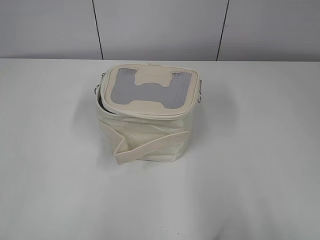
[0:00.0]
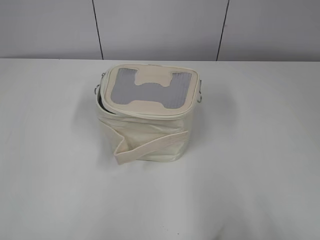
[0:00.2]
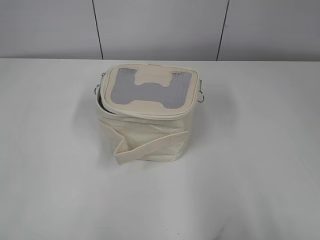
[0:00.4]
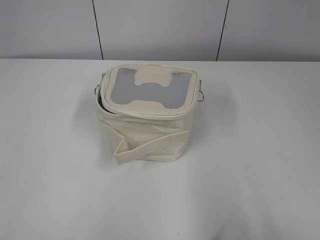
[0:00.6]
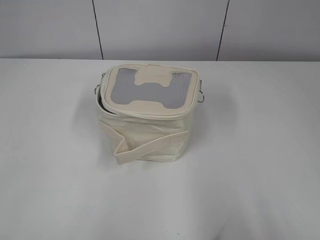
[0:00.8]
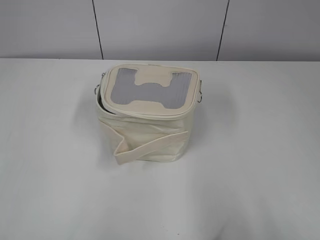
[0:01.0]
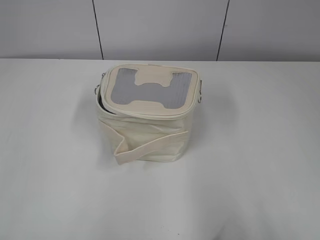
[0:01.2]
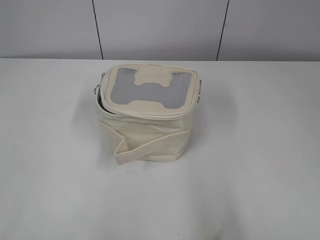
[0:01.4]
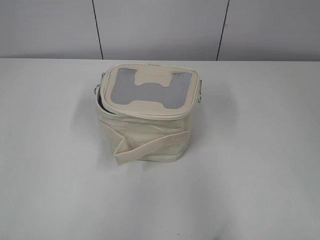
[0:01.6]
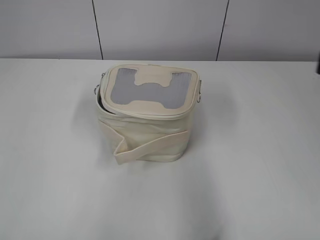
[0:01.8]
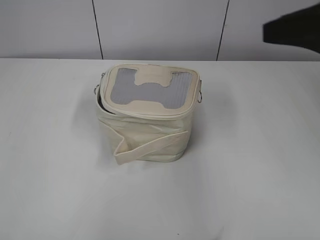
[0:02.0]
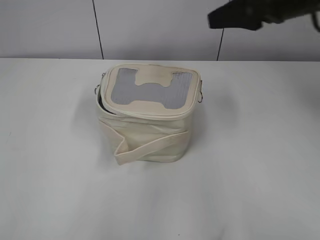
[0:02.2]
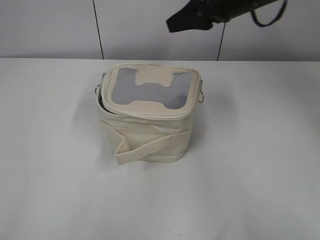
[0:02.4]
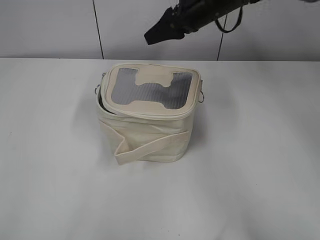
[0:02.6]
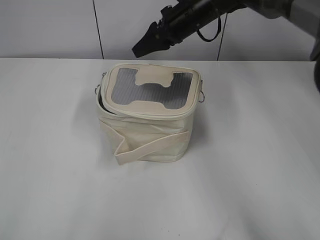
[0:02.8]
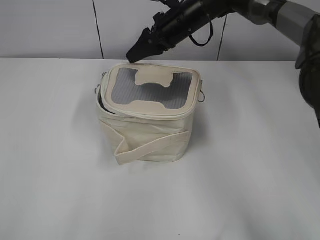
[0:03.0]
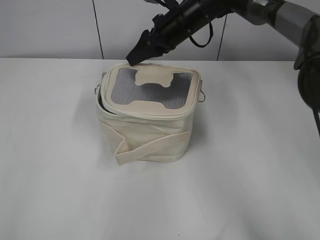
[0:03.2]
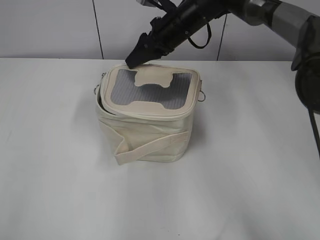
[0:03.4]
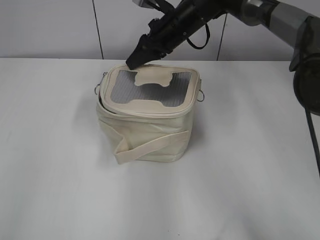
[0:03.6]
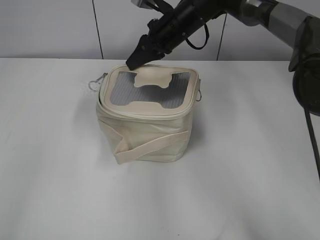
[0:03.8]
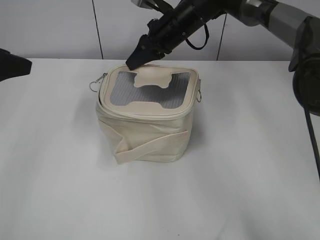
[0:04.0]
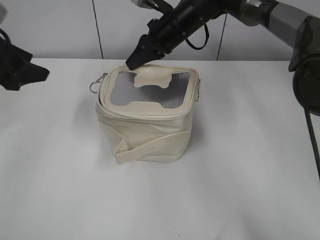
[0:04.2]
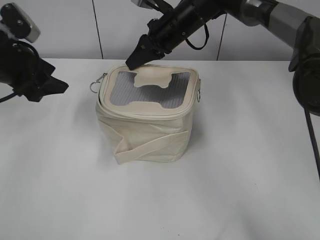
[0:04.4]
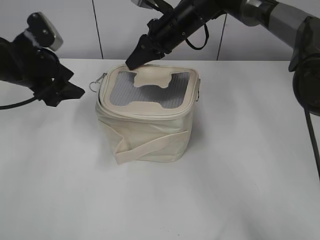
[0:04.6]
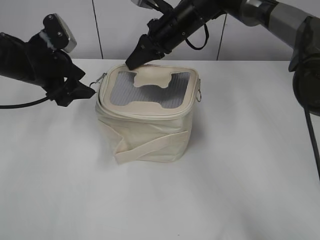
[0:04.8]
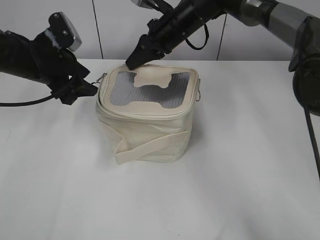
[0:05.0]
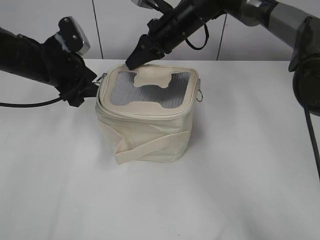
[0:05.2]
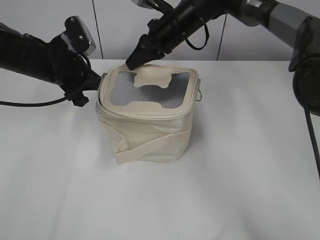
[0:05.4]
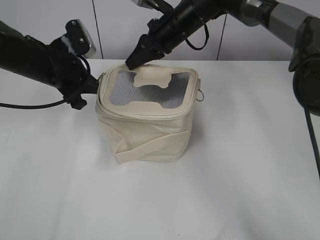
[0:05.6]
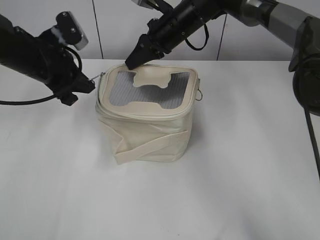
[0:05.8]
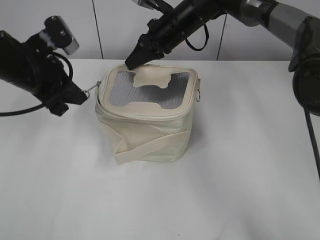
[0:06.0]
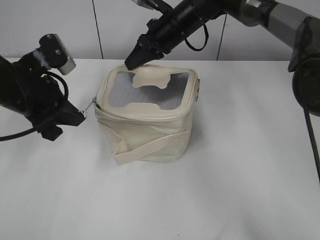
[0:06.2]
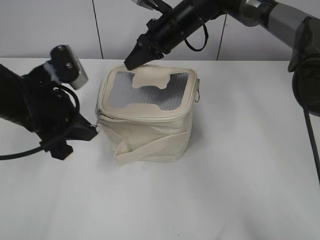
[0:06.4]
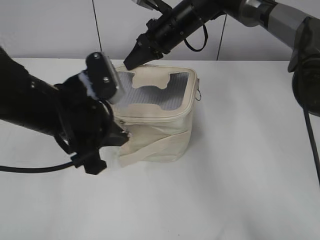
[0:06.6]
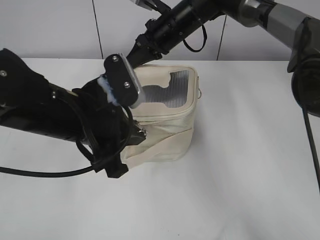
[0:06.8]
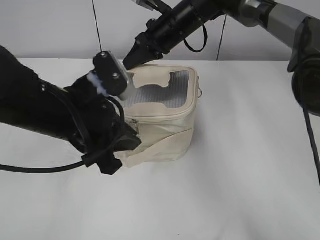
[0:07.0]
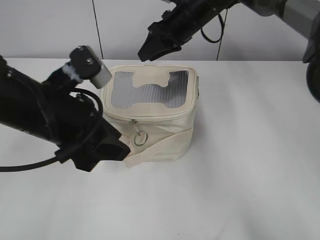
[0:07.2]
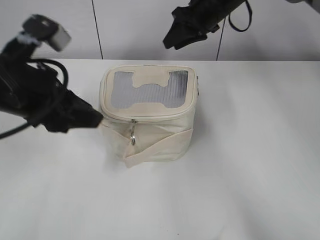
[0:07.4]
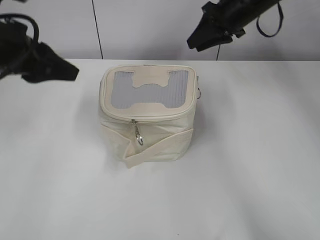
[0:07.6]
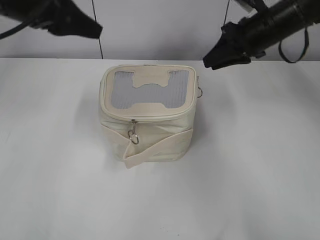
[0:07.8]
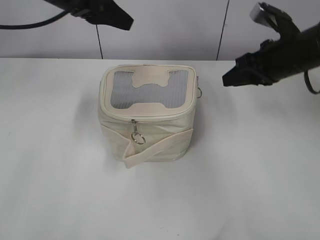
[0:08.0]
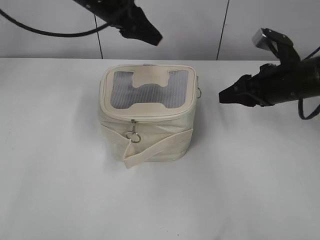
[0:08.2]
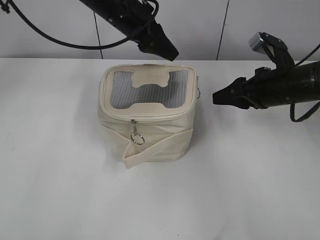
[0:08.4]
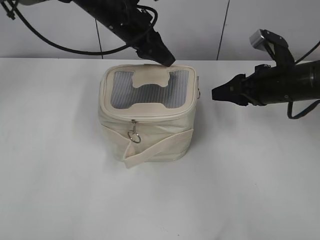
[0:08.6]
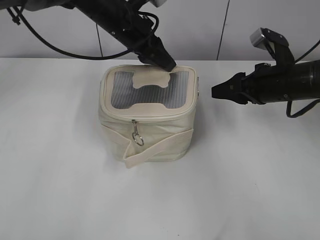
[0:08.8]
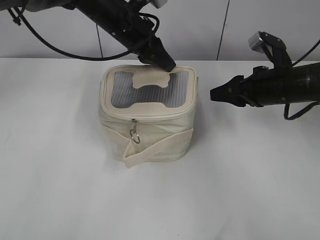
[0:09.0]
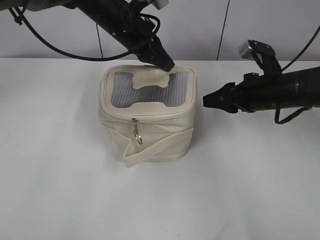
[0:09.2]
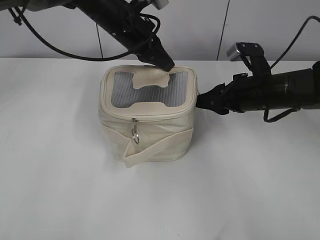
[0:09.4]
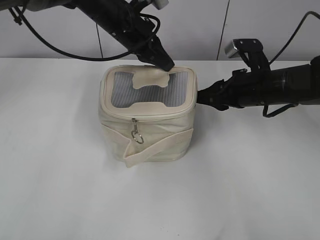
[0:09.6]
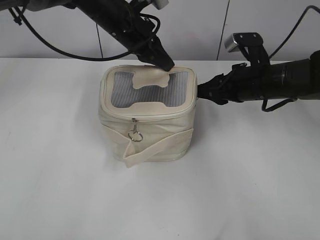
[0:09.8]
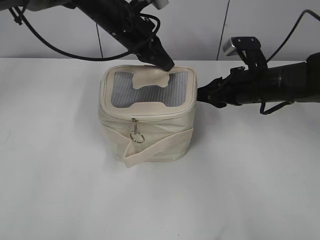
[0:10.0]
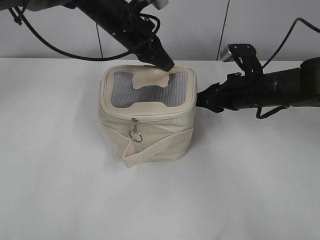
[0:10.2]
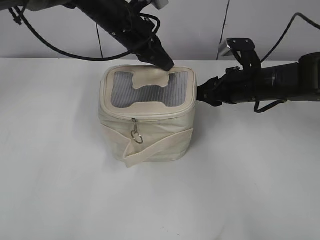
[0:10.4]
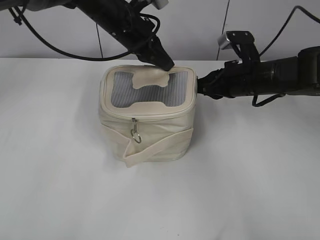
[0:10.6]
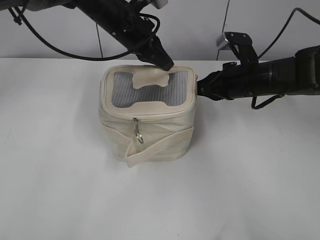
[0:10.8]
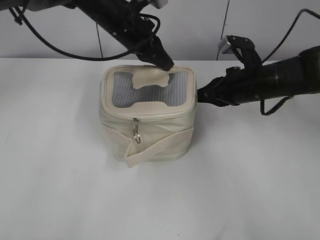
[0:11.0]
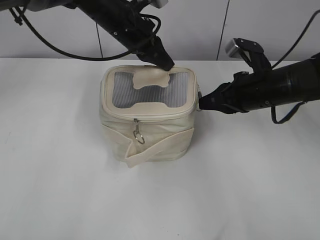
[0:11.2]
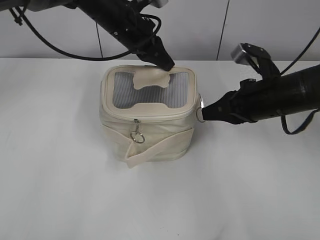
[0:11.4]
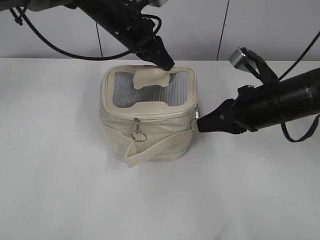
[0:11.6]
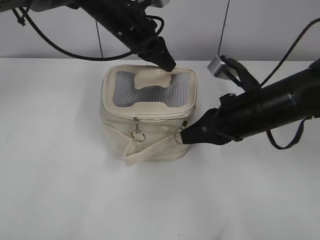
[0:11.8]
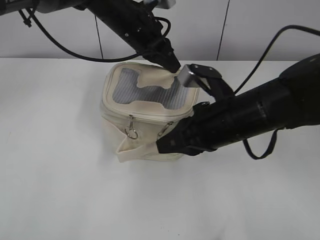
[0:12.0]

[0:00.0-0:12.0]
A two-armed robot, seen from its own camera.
Step, 0:00.0 to 0:07.0: Zip up the bag with your left hand.
0:01.6 to 0:03.0: The right gripper travels forward and to the left by roughly 50 cm.
0:03.0 to 0:04.4: The left gripper heads forward, covering approximately 35 cm, and opens. Meanwhile the right gripper closes its fingers.
0:04.4 to 0:06.0: The left gripper goes approximately 5 cm to the right, and closes.
0:06.0 to 0:07.6: The right gripper travels to the right by roughly 10 cm, and opens its fingers. The left gripper is displaced backward and upward by roughly 10 cm, and opens.
0:07.6 to 0:09.0: The left gripper is displaced forward and to the right by approximately 25 cm. Meanwhile the right gripper moves backward, downward and to the right, some 20 cm.
0:09.0 to 0:10.4: The right gripper shifts by some 5 cm. The left gripper closes.
0:10.4 to 0:12.0: The right gripper travels backward and to the left by approximately 10 cm, and closes.

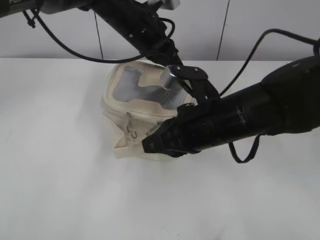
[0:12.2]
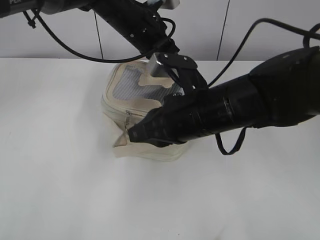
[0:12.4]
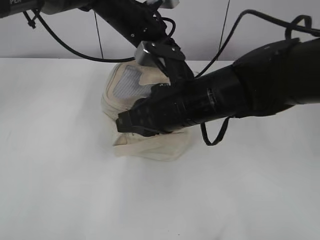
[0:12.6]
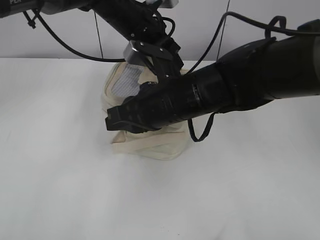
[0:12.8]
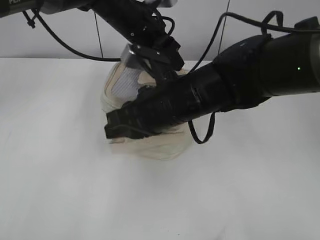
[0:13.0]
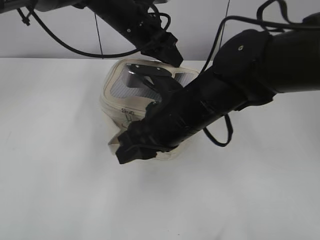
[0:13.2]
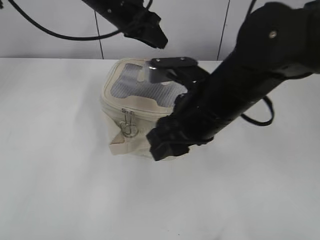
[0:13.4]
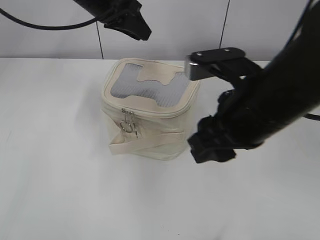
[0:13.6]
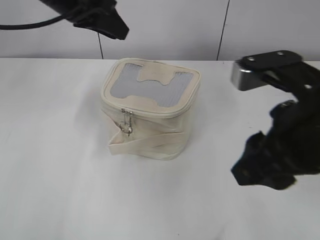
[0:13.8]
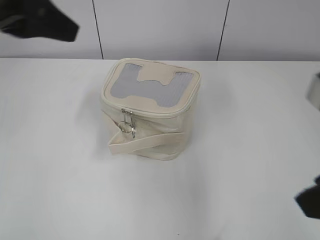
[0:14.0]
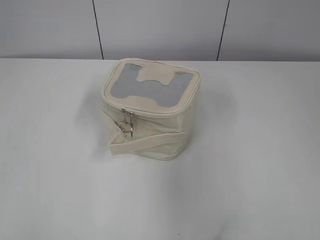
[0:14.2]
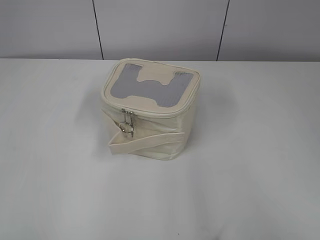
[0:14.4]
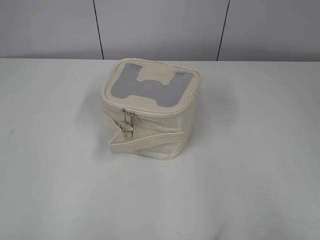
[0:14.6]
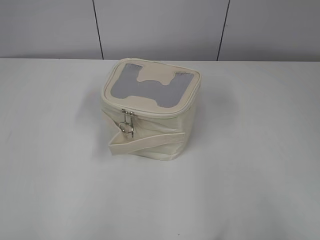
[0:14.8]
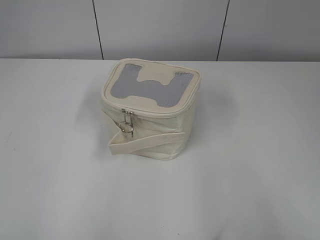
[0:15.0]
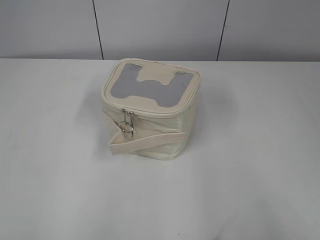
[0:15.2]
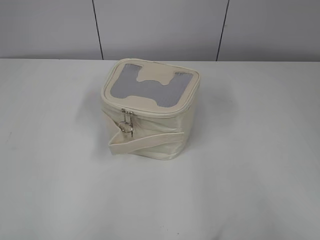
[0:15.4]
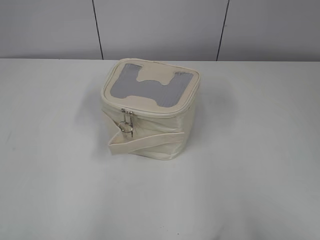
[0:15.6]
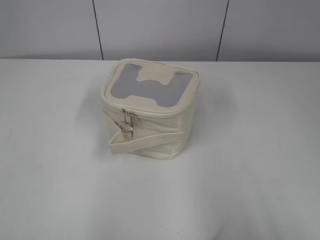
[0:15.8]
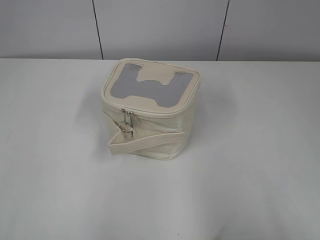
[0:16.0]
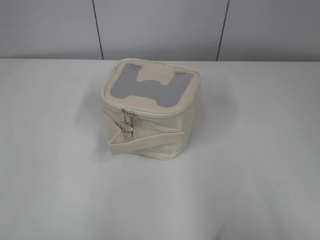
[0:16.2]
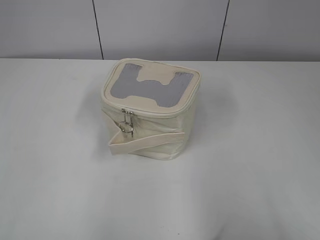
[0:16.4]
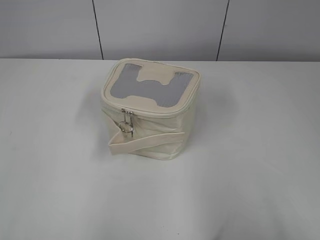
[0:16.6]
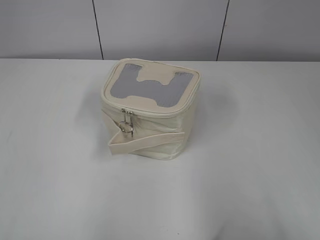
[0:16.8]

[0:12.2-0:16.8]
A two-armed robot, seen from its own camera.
0:12.2 to 0:13.8: The left gripper heads to the left, upward and backward, covering approximately 15 cm, and opens up; the right gripper heads upward and backward, covering roughly 10 cm, and opens up.
0:13.8 to 0:15.2: The right gripper is displaced backward and to the right by some 25 cm; the left gripper travels backward and to the left by roughly 40 cm.

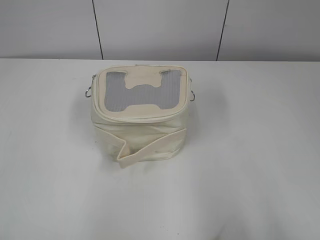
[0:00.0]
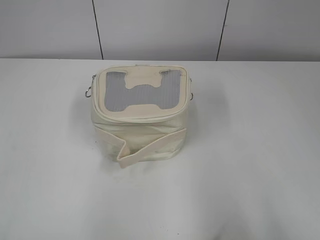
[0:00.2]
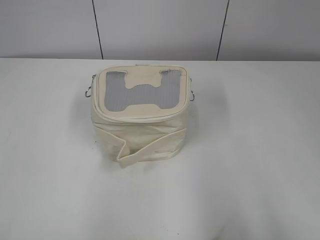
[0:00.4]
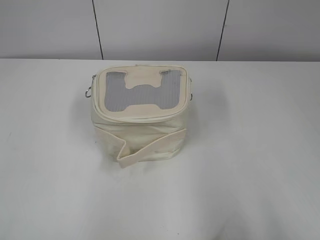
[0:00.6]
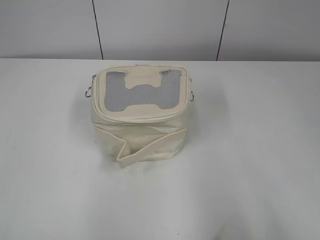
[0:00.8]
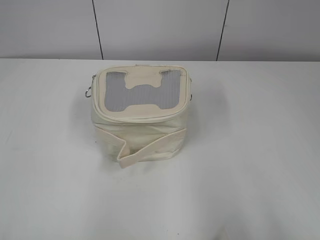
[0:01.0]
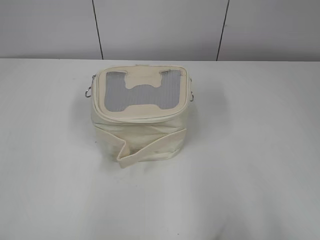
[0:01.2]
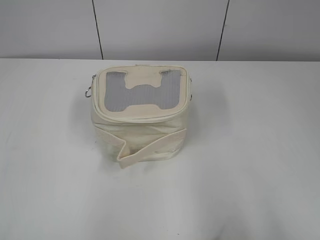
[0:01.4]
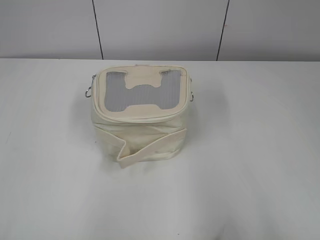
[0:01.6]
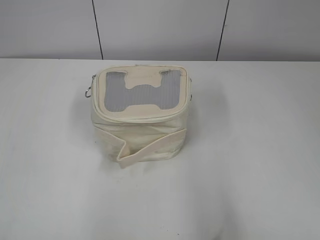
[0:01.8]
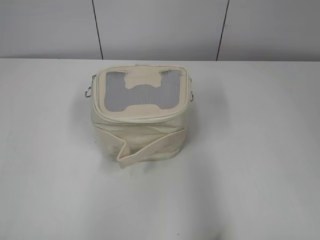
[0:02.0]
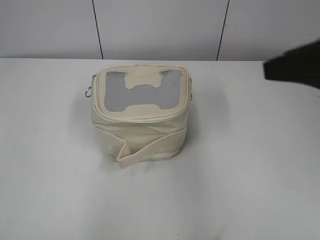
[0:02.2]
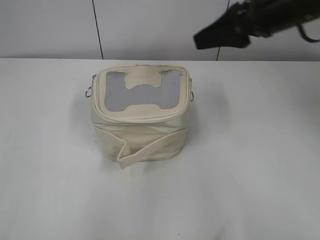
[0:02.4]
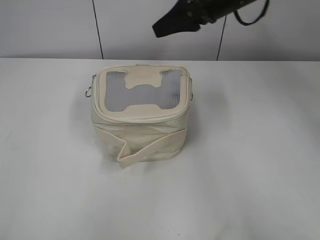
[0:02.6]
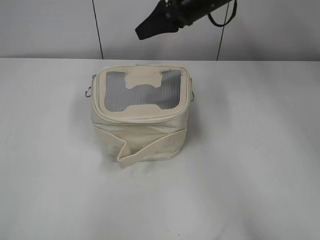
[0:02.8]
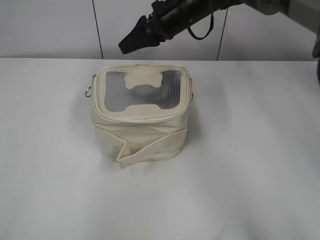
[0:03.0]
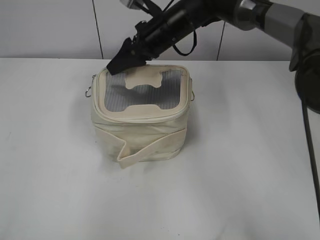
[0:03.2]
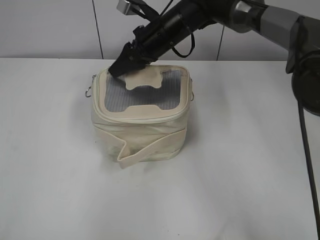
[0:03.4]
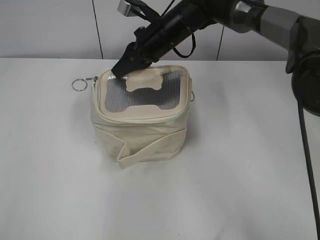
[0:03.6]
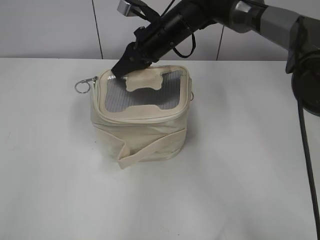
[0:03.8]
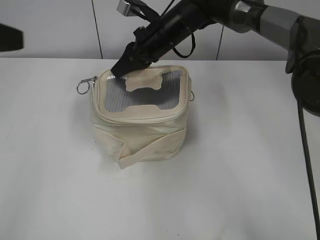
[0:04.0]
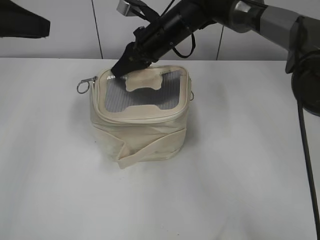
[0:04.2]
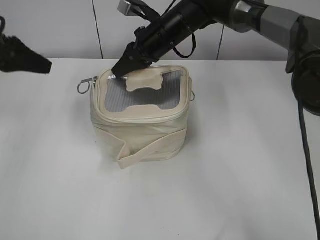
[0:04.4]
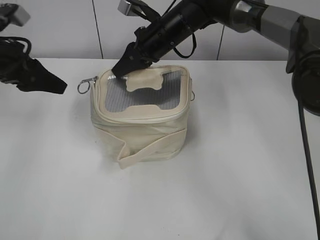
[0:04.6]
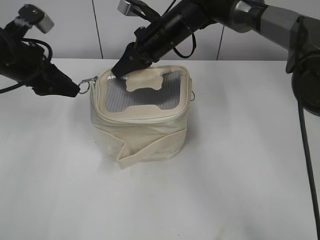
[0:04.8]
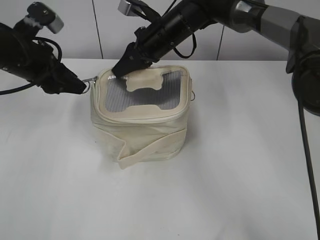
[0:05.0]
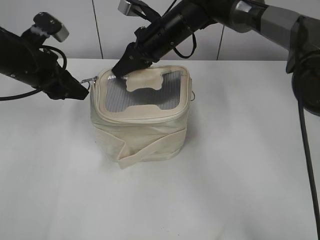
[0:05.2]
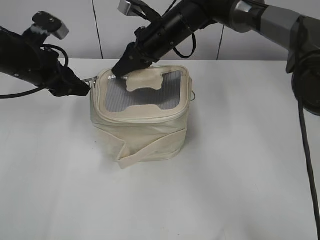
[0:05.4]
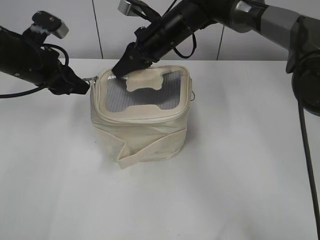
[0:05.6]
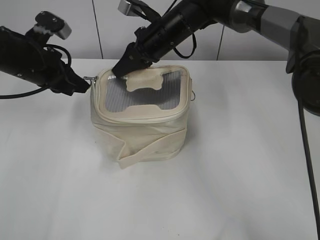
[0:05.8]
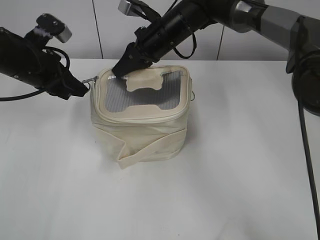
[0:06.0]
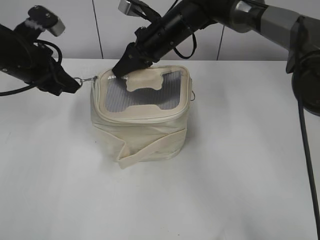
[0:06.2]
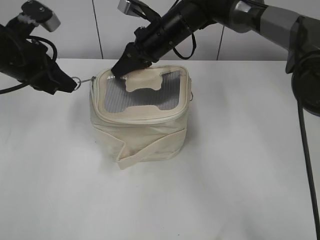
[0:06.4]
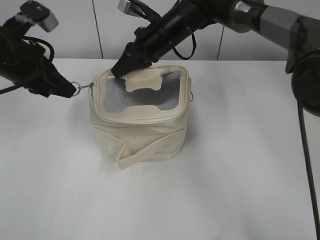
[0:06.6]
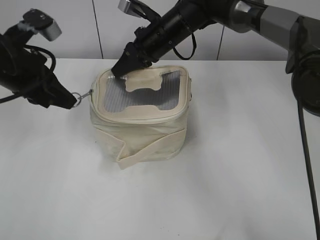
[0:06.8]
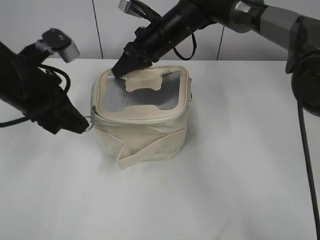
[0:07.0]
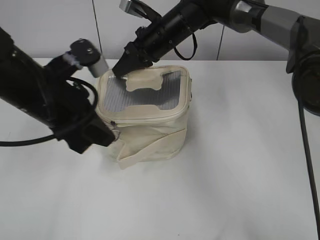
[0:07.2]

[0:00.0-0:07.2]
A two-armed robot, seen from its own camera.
0:01.4 to 0:02.8: The right gripper is displaced forward and to the left by about 50 cm.
0:02.8 to 0:04.4: The left gripper travels forward by about 35 cm, and opens up; the right gripper is displaced downward and to the left by roughly 10 cm, and closes its fingers.
0:04.4 to 0:05.8: The left gripper moves to the right and downward, about 10 cm, and closes.
0:05.8 to 0:07.2: The left gripper heads backward and to the right, covering approximately 10 cm.
